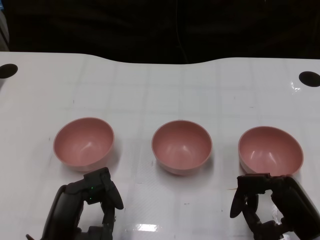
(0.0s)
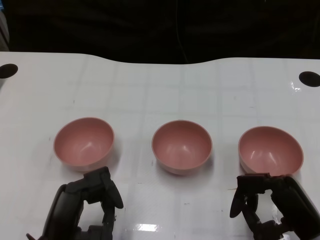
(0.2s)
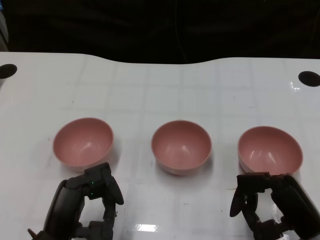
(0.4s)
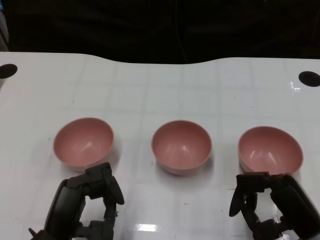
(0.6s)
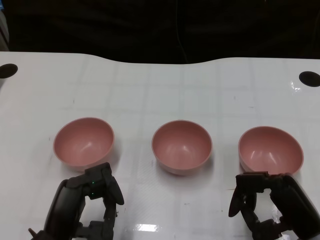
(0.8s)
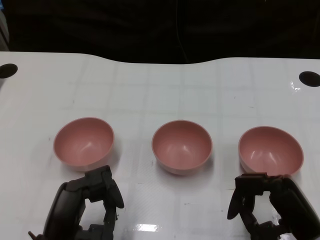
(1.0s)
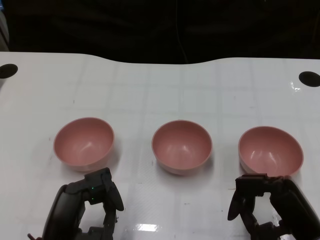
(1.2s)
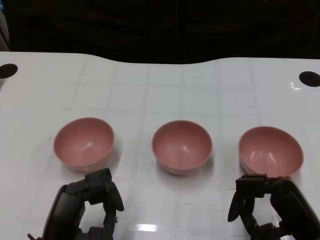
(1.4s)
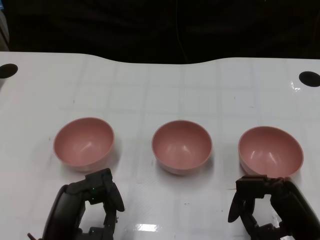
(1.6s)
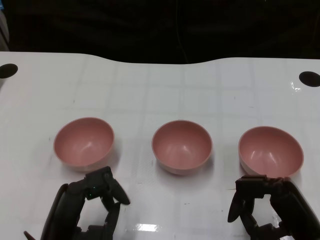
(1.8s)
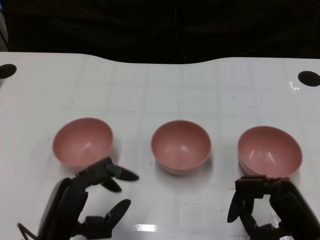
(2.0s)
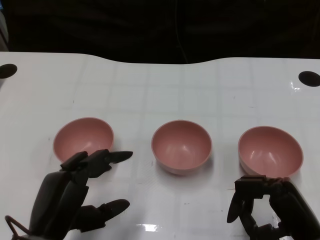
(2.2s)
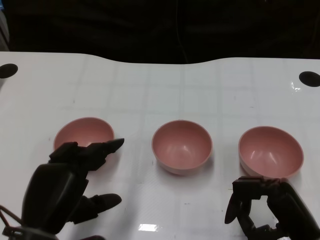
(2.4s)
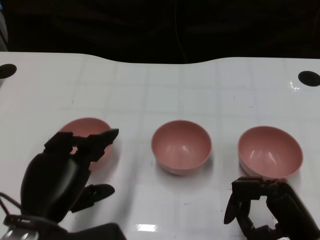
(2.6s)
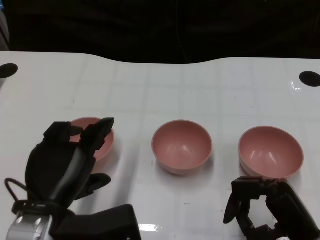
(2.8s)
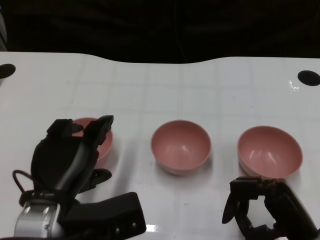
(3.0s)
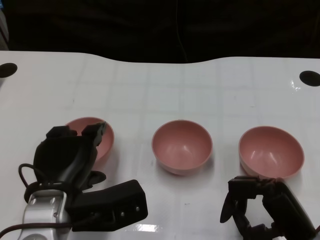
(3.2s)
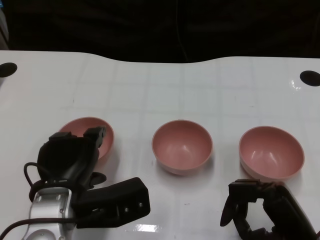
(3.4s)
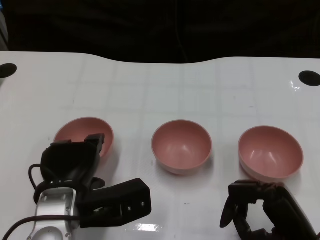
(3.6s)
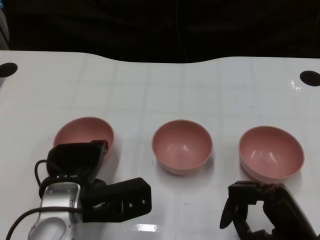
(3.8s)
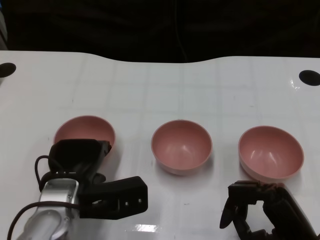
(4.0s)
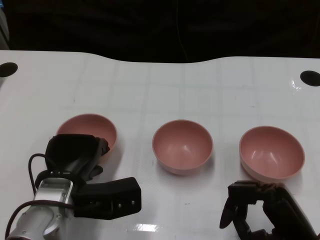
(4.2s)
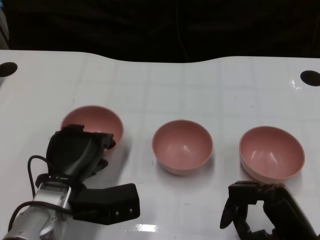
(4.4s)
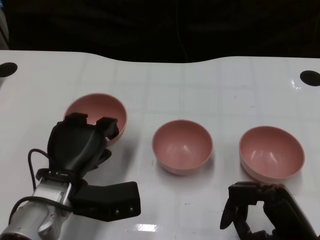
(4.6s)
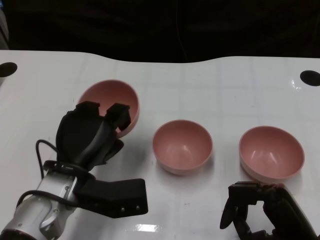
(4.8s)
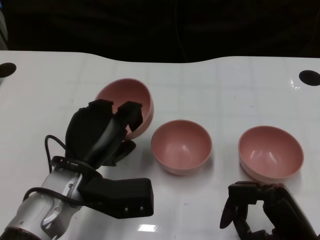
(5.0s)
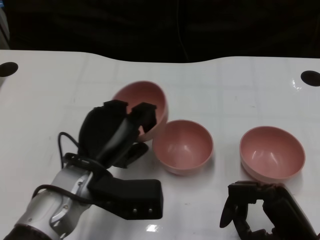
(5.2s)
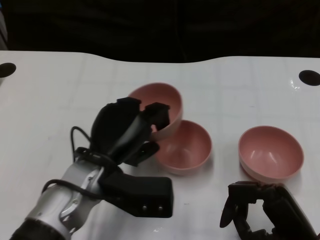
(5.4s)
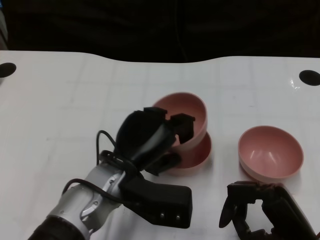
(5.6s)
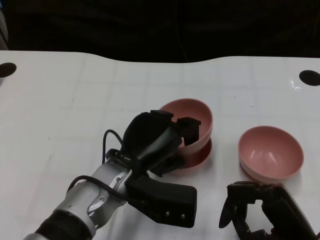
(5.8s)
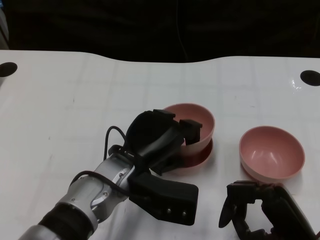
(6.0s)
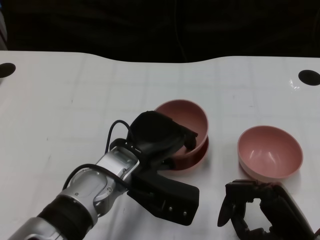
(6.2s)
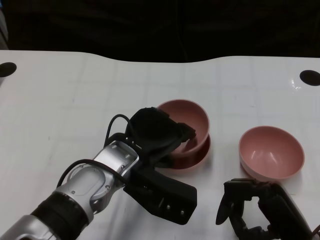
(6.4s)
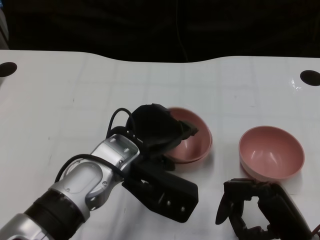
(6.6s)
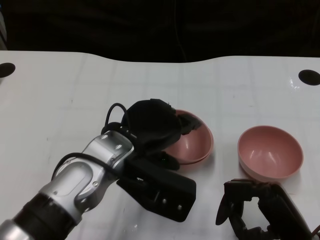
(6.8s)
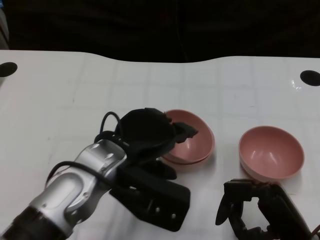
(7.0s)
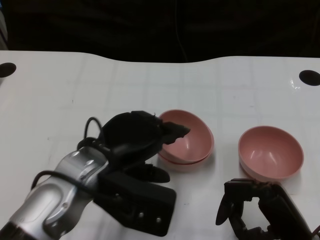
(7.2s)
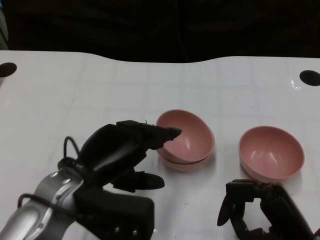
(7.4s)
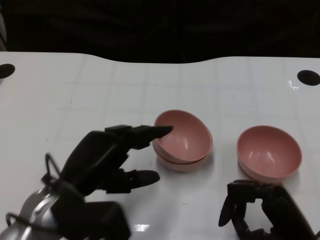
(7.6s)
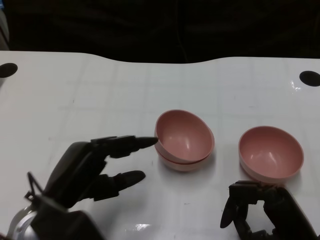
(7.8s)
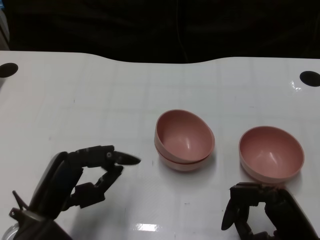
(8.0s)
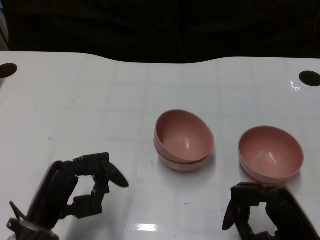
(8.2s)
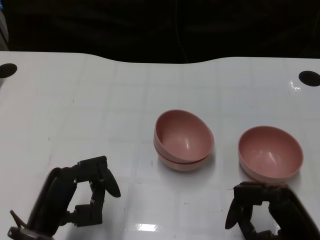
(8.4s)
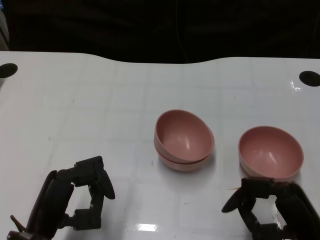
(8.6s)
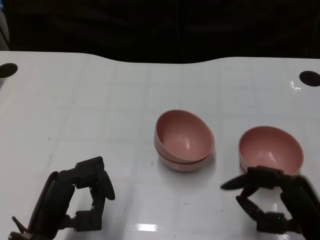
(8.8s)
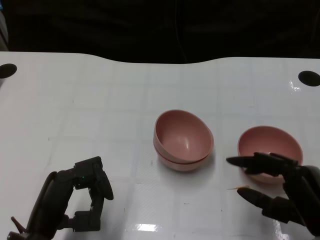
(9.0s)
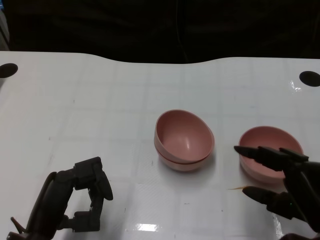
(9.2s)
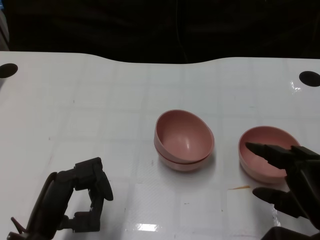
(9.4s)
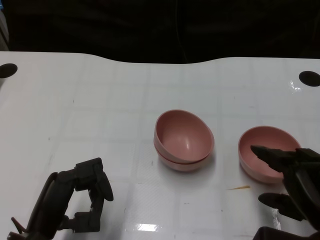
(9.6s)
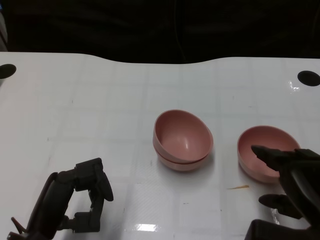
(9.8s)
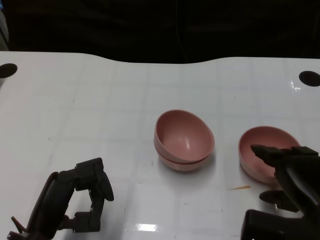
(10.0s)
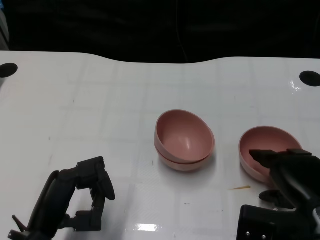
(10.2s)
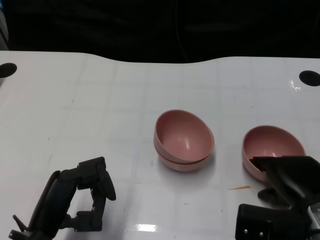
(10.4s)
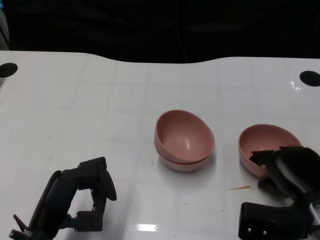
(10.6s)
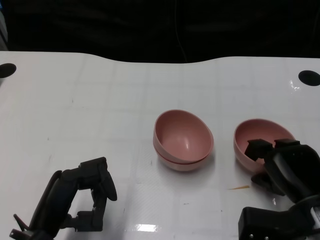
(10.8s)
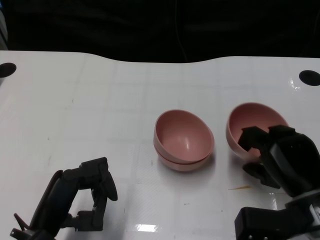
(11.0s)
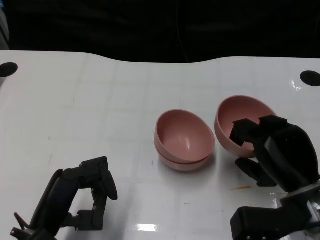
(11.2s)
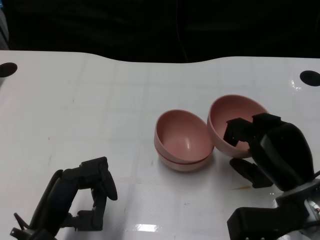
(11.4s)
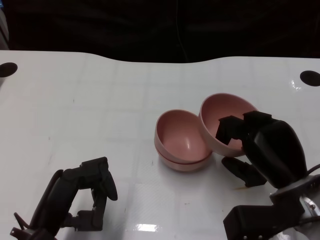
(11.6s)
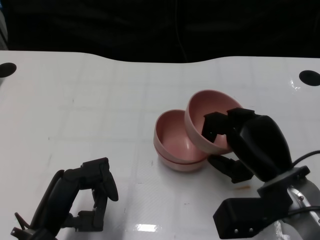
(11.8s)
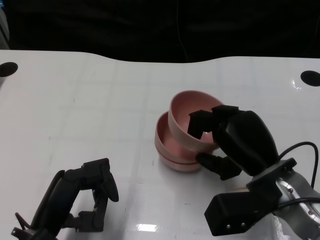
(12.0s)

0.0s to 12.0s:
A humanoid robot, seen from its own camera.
Task of the whole recording: Pick up the bowl on one side of the table and place it on top of the middle bowl, then pick up the bowl on the other side of the table and place it on top of the middle bowls.
Step, 2.0s to 4.2s: Grasp the bowl on the left with the left gripper.
Step, 4.4s to 7.0s: Place the bowl on the left onto the bowl in the middle with left gripper.
Step, 7.2s to 10.6s: Grasp the bowl on the right with the right gripper.
1.6s to 3.0s: The left hand is displaced upward by about 5 cm.
3.0s to 4.4s: The left hand travels downward and forward by about 10 cm.
4.4s to 6.0s: The left hand travels to the right by about 10 cm.
6.0s to 7.6s: The left hand shifts some 10 cm to the left.
7.6s to 9.0s: The left hand travels downward by approximately 5 cm.
9.0s to 10.4s: The right hand shifts some 5 cm forward.
10.4s to 12.0s: The right hand goes about 5 cm to the left.

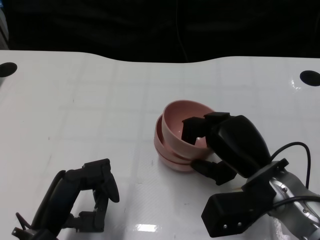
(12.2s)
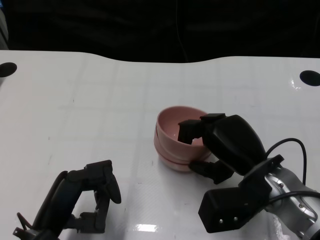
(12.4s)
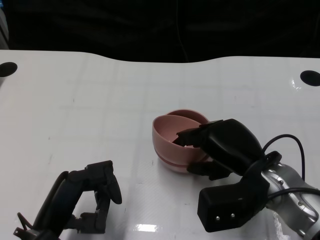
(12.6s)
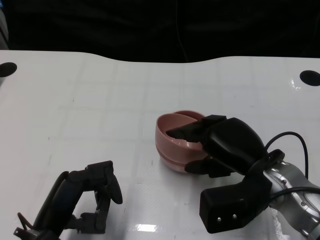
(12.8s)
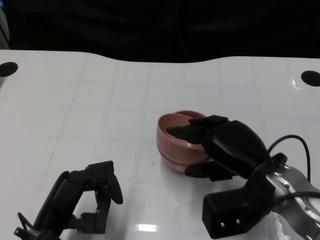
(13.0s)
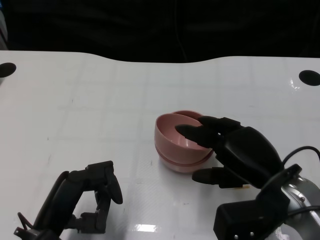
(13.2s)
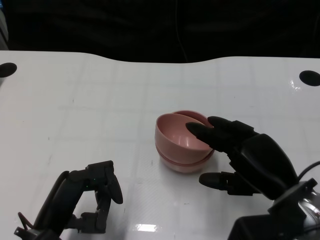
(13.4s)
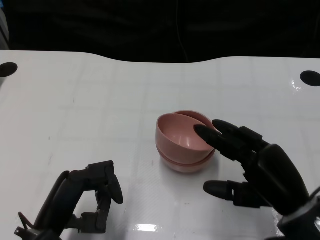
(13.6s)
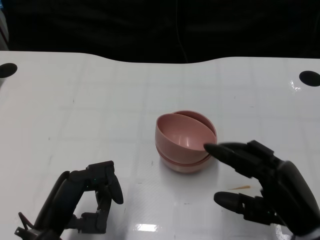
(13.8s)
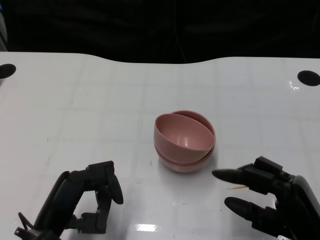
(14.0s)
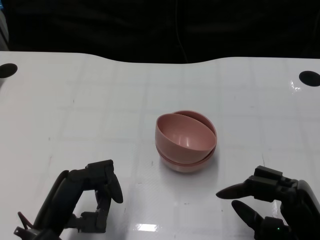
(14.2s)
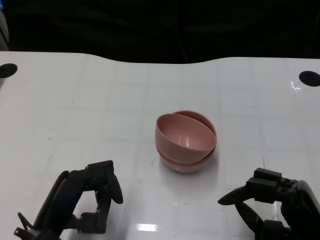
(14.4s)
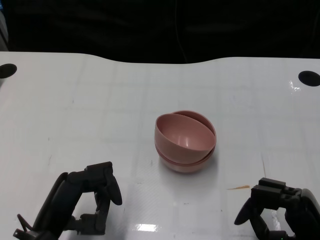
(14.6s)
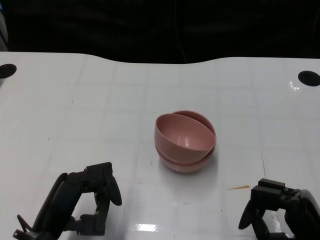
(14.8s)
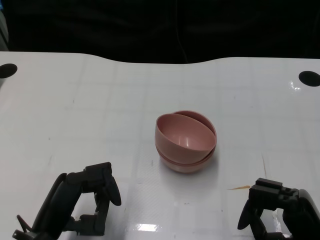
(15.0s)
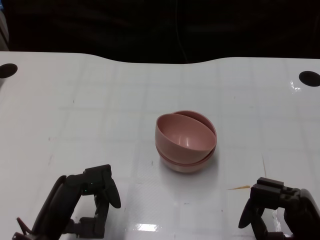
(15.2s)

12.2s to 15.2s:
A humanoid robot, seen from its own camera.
Task of the whole recording: Pick up the bowl on one side of the table and place it on top of the middle bowl, then pick up the bowl on the other side of the table and place it on top of the middle bowls.
12.2s to 13.8s: The right hand travels backward and to the right by about 10 cm.
13.8s to 15.2s: The hands stay close to where they were, moving slightly.

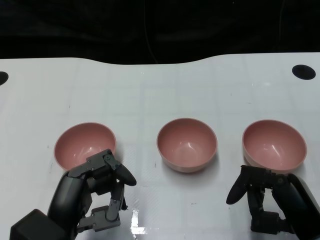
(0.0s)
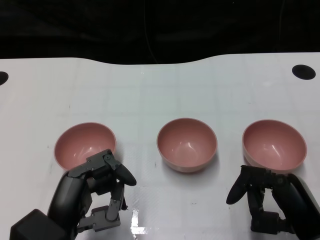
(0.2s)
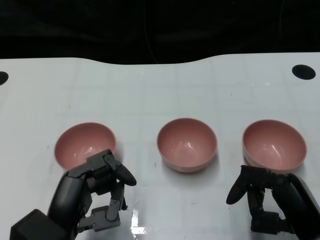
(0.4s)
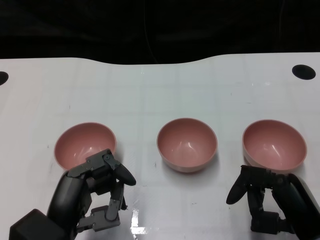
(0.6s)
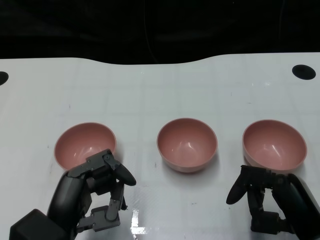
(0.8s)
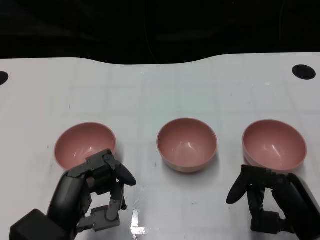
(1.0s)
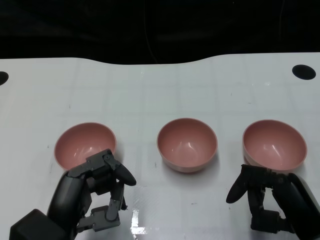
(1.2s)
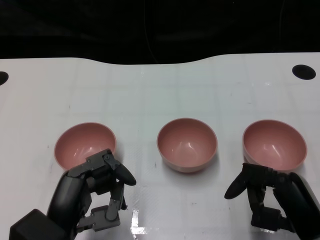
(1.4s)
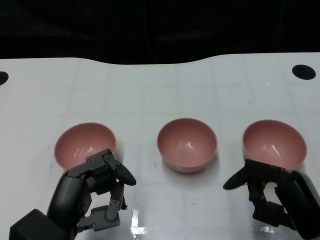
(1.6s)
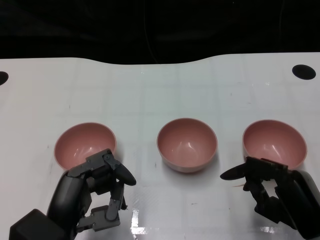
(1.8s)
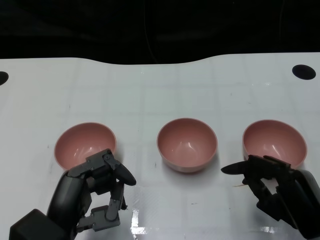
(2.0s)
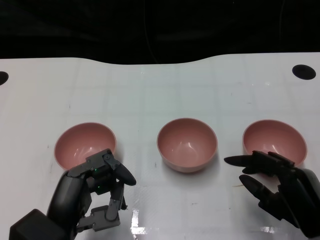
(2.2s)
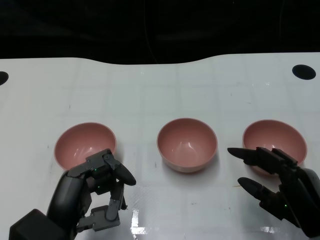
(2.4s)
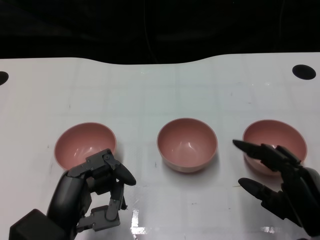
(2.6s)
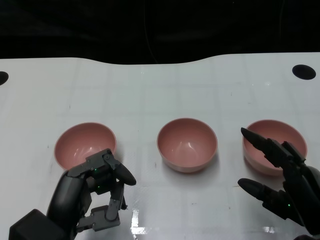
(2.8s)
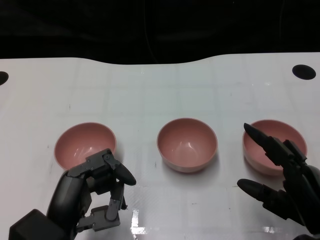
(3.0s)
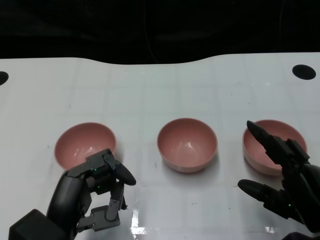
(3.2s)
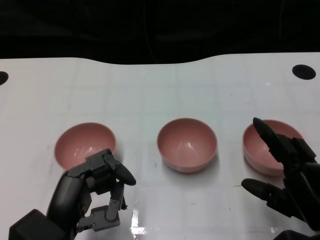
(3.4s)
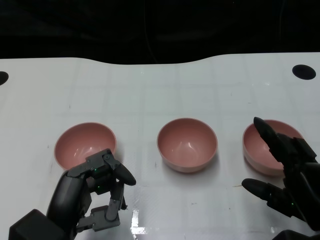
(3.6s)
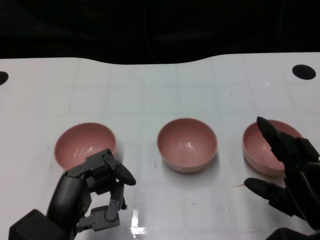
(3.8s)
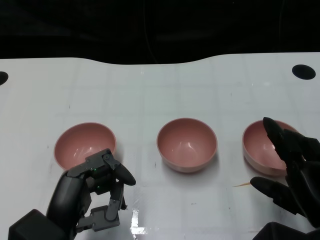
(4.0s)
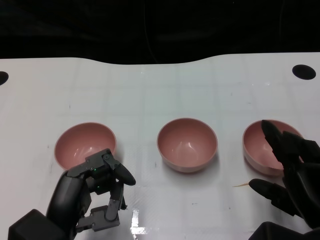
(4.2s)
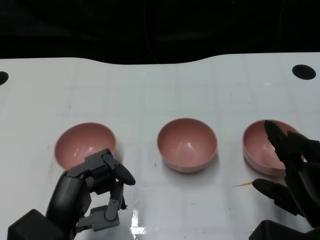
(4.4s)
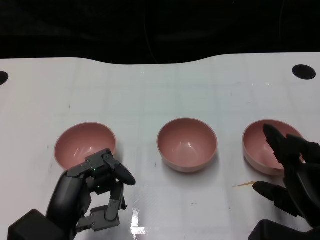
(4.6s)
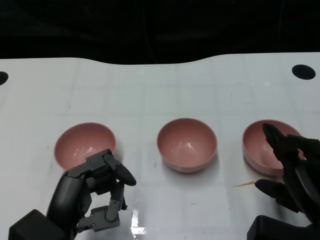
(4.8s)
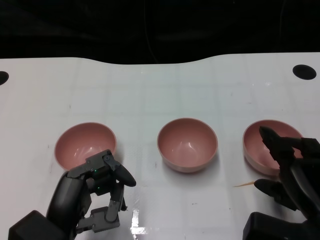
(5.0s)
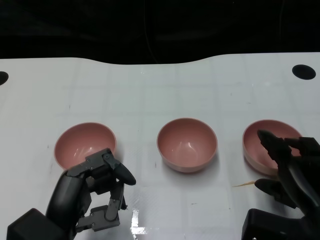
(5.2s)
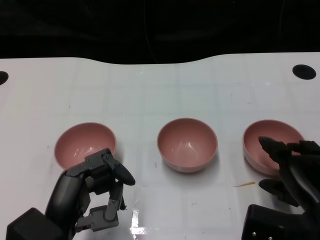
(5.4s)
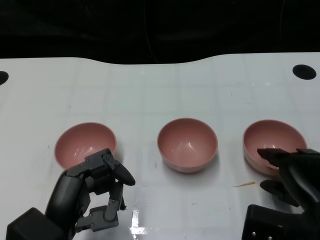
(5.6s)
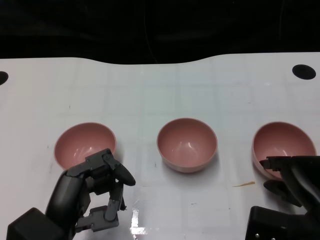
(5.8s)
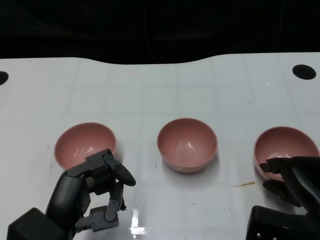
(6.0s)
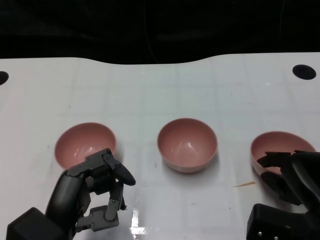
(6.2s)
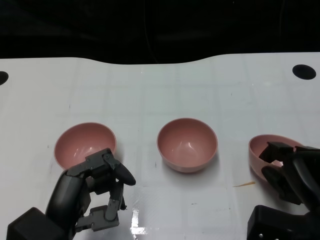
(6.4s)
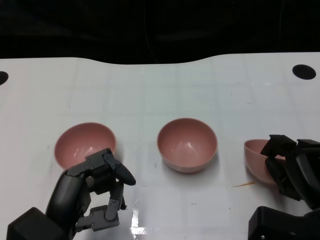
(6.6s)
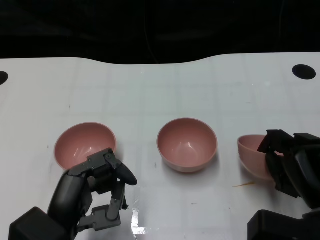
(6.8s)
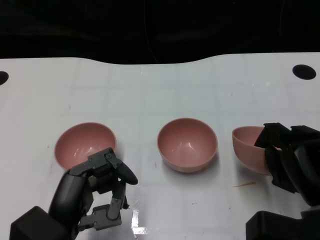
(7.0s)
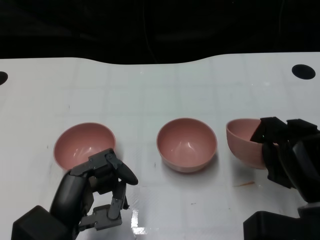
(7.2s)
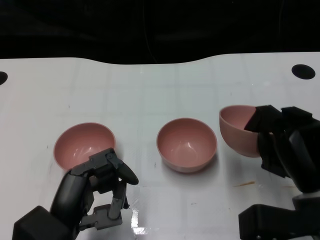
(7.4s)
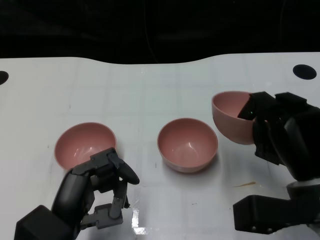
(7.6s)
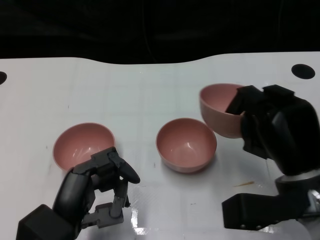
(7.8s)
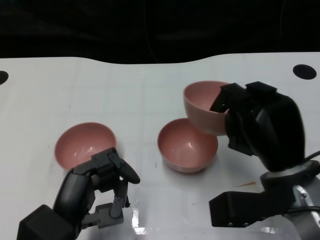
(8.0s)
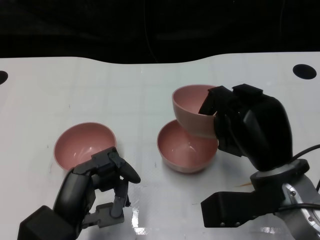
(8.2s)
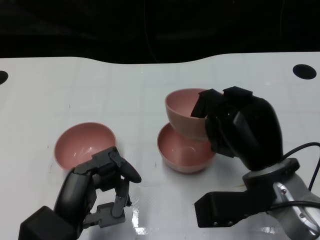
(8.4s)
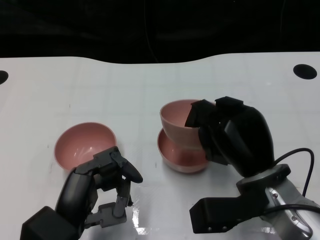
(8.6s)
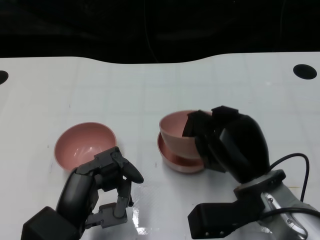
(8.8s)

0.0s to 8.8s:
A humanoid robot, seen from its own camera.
Task of the whole recording: Pick up the bowl on one side of the table and place it on top of the middle bowl, then pick up the bowl on the other side of the table and place it on top of the middle bowls.
Step, 1.4s to 6.8s: Grasp the bowl on the right with the right gripper.
1.4s to 3.0s: The hands stay close to where they were, moving slightly.
4.4s to 5.8s: There are only small adjustments of the hands.
7.4s to 8.8s: The right hand is displaced to the left by approximately 5 cm.
